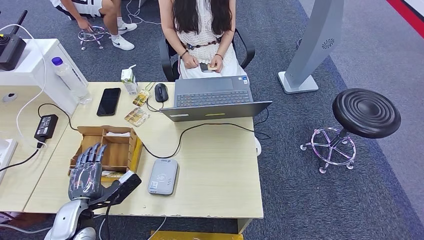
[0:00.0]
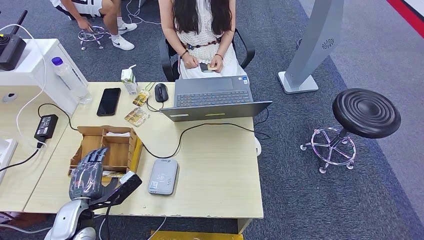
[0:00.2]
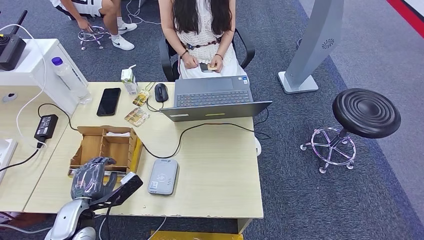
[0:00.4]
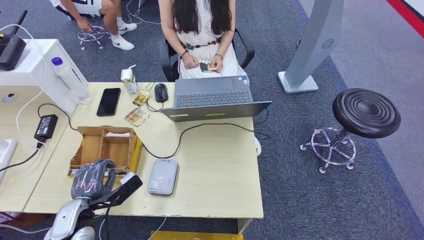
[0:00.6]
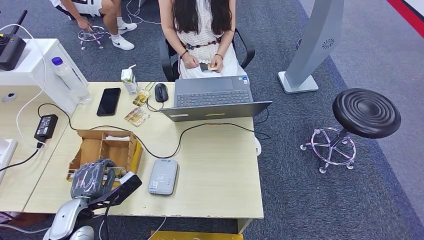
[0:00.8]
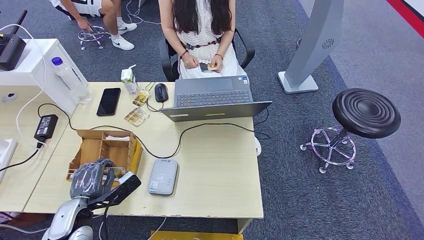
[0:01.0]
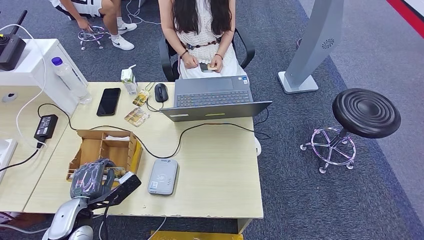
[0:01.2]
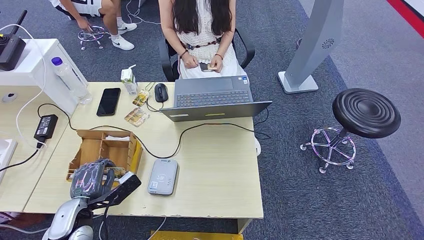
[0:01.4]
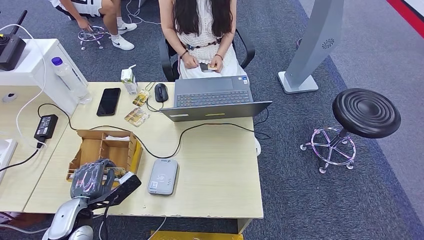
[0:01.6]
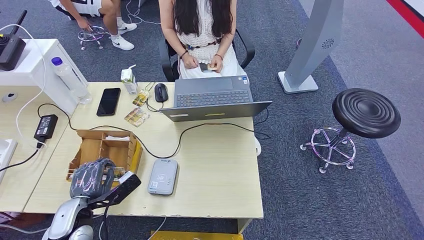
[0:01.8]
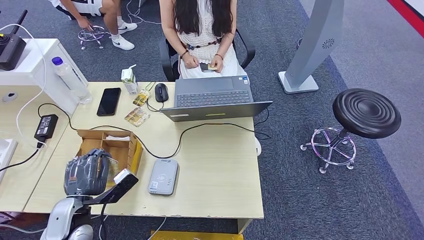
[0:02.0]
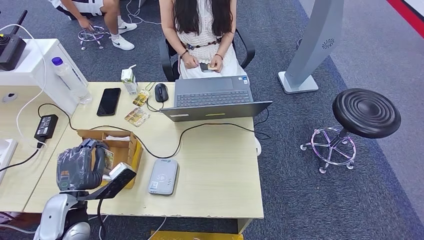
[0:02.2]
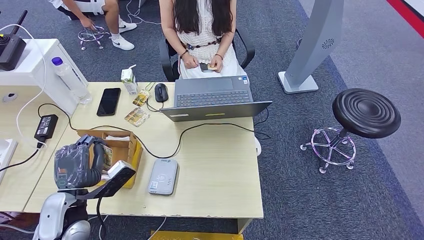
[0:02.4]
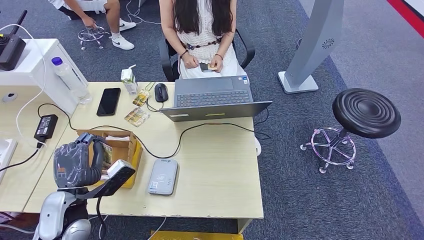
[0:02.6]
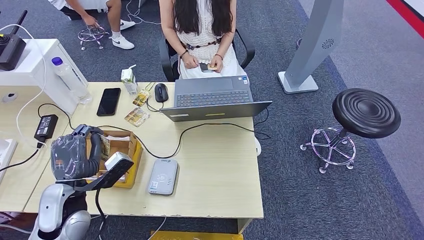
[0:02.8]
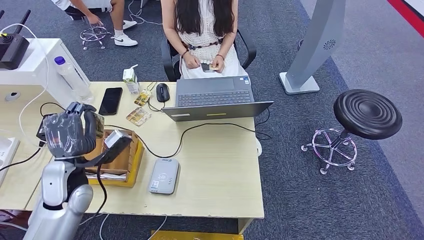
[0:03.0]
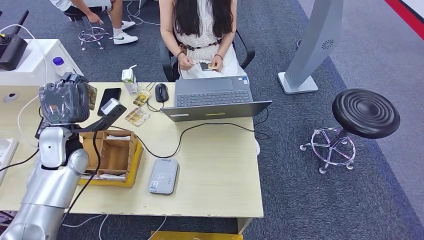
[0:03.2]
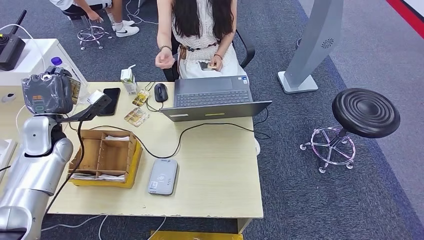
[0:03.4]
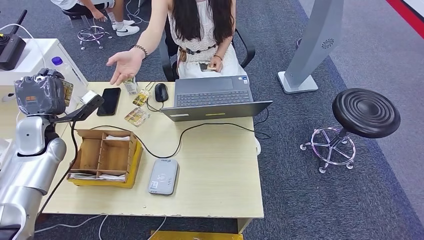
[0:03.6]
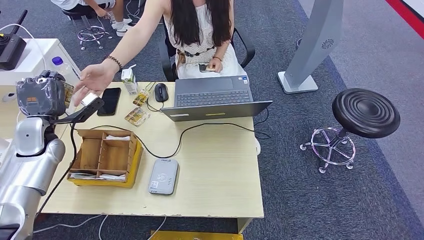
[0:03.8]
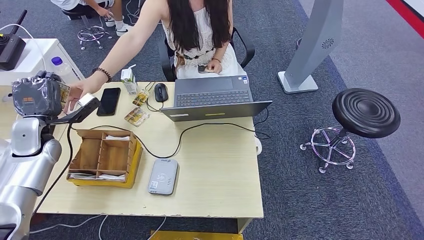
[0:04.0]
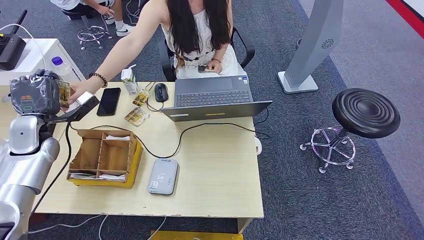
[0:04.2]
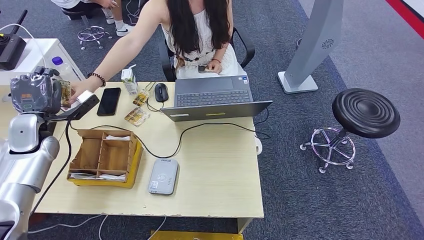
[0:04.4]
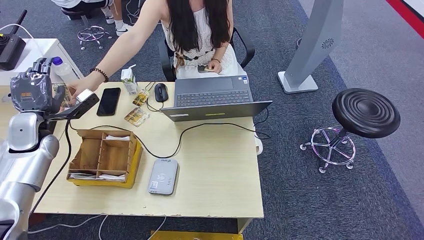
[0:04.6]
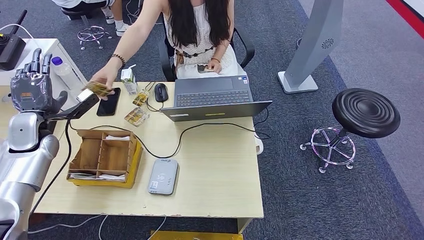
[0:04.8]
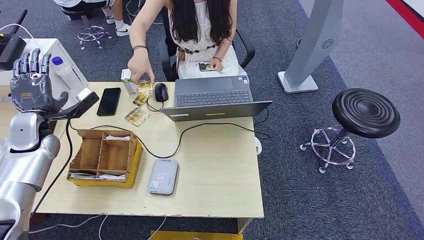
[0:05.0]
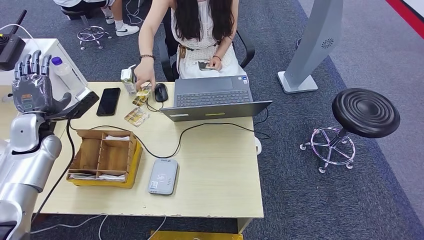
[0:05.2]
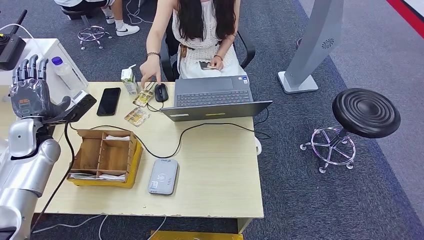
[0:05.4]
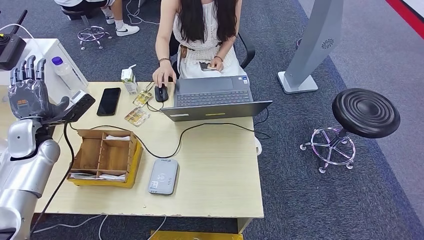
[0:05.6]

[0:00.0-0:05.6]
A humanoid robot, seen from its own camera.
Step, 0:00.0 to 0:02.6: Pick up the room key from the key card box.
Step, 0:02.8 to 0:05.6: Hand the room key to the person.
0:00.0 to 0:01.4: The hands move only a little.
0:01.4 to 0:02.8: The left hand goes approximately 5 cm upward.
0:04.2 to 0:05.6: The hands move only a little.
